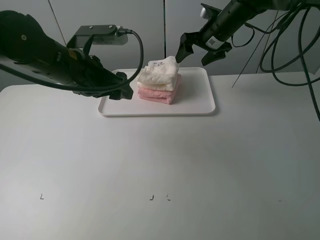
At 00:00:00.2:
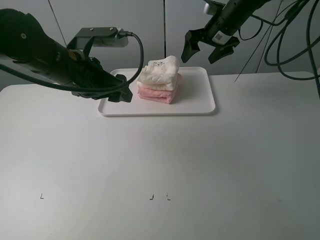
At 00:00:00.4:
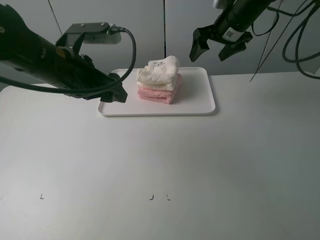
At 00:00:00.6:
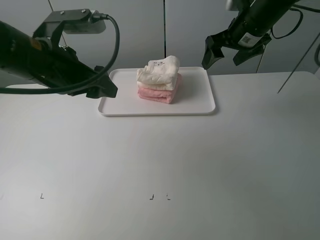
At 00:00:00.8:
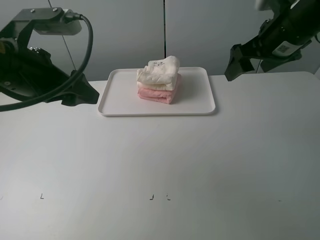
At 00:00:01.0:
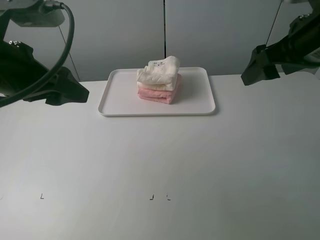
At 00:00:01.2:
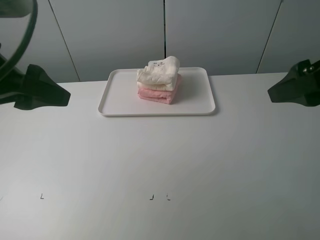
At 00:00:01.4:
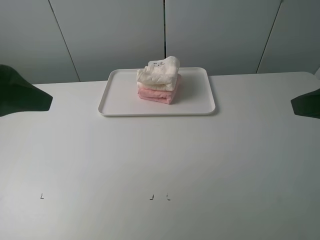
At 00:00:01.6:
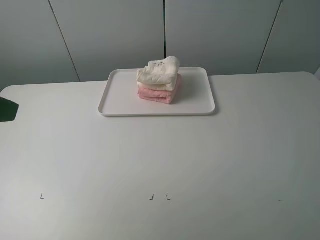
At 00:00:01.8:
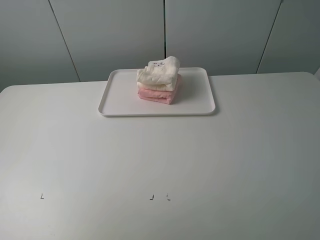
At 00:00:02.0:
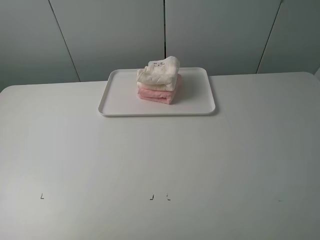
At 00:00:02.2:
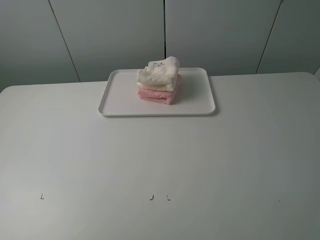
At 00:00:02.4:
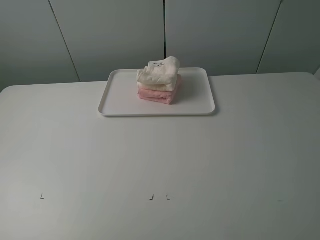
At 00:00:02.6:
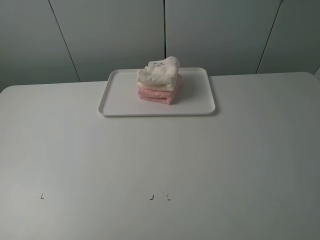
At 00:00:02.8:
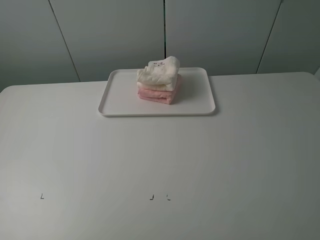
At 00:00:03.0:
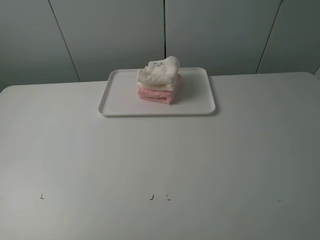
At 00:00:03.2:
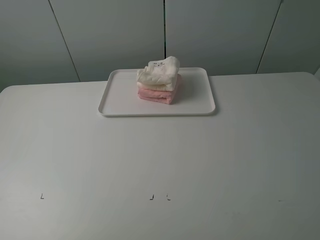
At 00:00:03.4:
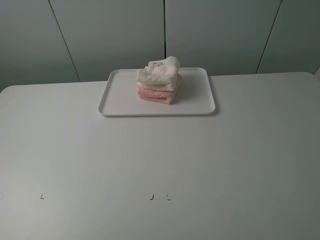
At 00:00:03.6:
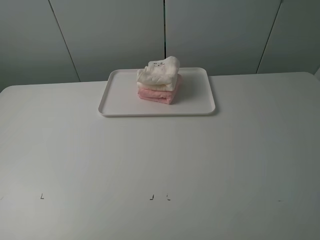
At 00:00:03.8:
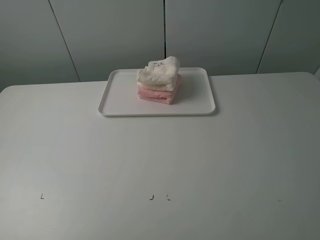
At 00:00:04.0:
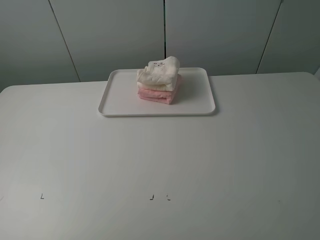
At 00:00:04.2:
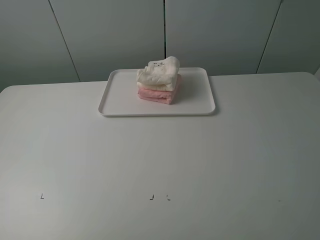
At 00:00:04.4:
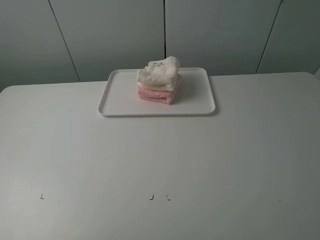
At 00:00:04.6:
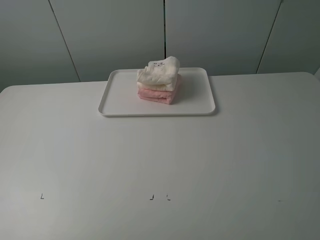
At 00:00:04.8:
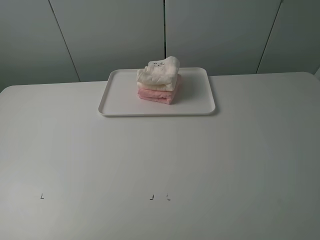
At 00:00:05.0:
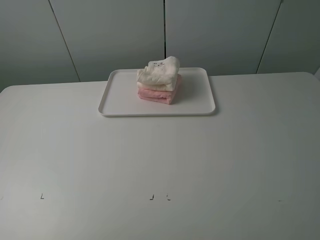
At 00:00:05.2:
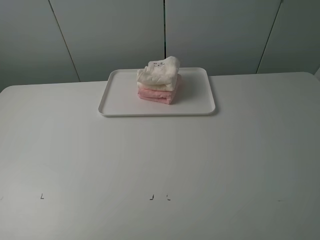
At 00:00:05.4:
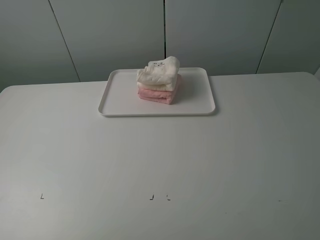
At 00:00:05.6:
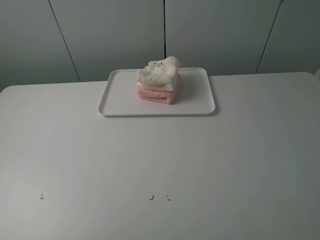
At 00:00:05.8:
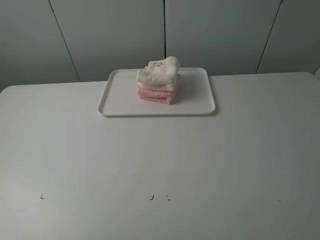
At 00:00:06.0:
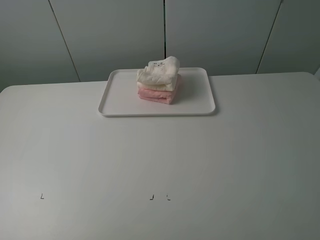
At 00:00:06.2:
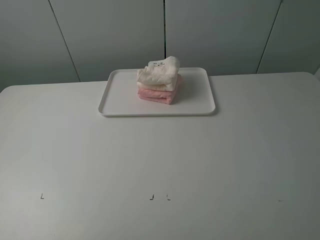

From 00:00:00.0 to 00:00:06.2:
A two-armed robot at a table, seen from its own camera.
Task of the whole recording: fold one of the towels by two grippers and place it on the tray,then fold another towel by two grippers and place it on the folded towel.
From 00:00:00.0 to 00:00:01.6: The left gripper shifts some 25 cm backward, upward and to the left. The right gripper shifts about 40 cm backward.
From 00:00:01.6 to 00:00:03.2: The left gripper is displaced backward, to the left and downward by some 15 cm. The right gripper shifts about 5 cm backward.
From 00:00:04.6 to 00:00:06.2: Both grippers stay about where they are.
